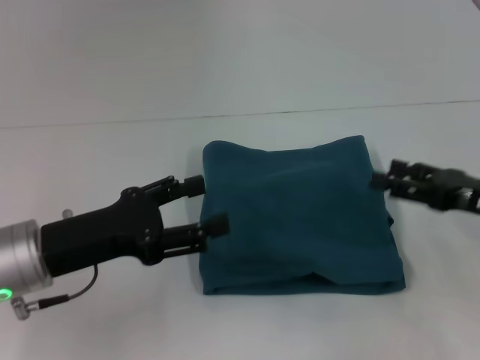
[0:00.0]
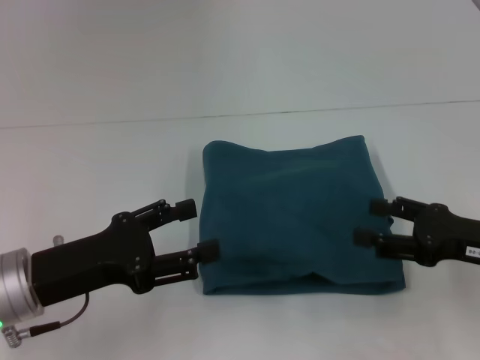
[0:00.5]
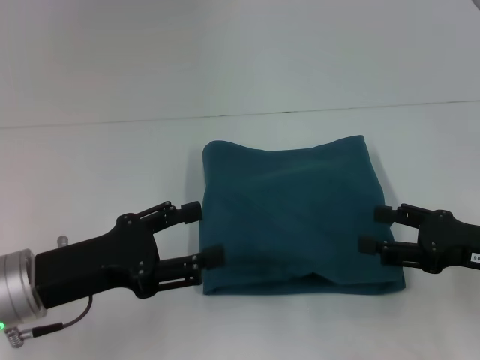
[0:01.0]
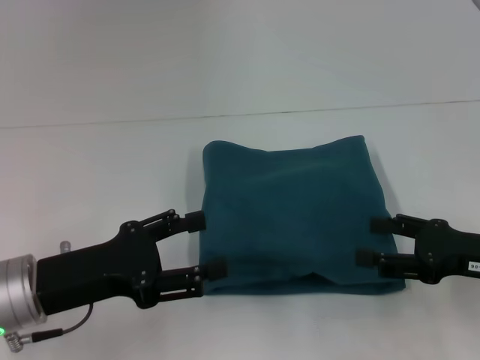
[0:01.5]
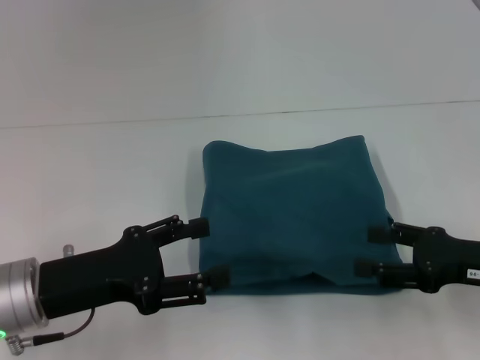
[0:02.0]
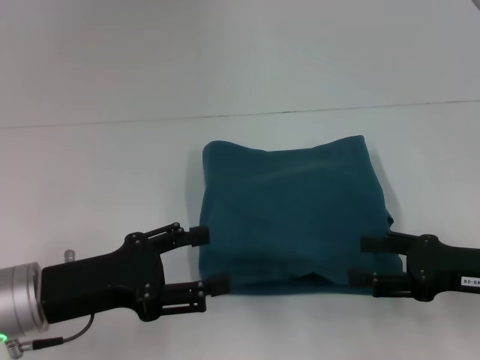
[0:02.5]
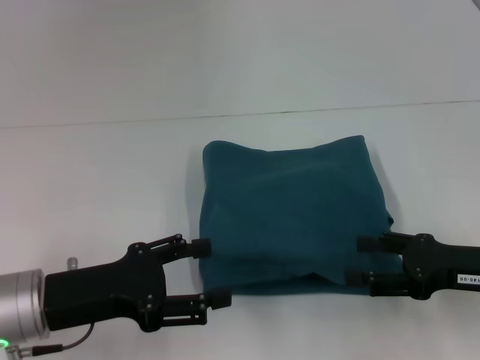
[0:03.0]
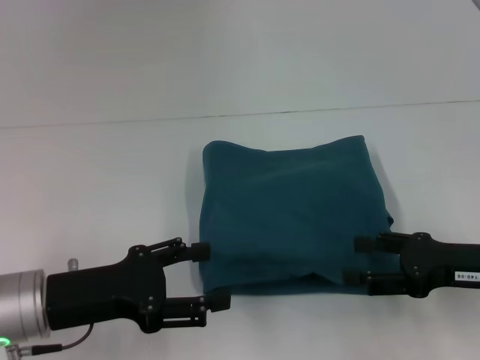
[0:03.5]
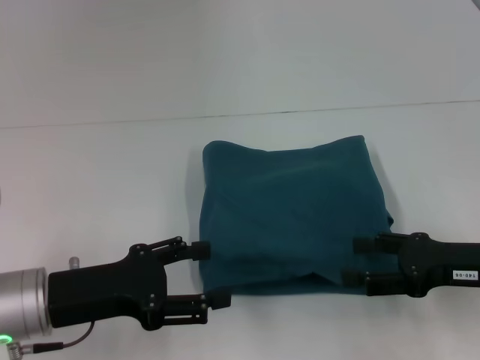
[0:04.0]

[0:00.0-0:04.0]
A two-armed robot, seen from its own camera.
0:00.0 to 0:04.0: The grippers make only small movements.

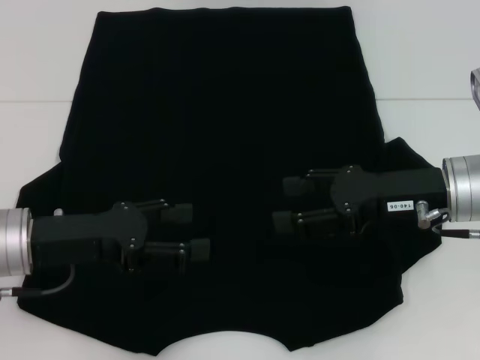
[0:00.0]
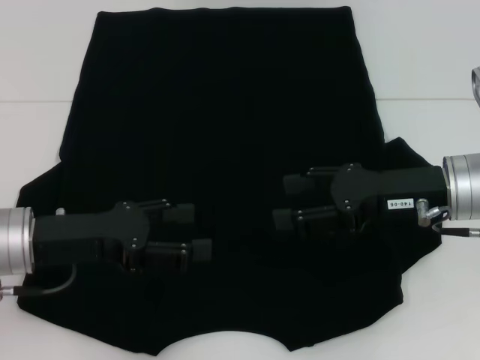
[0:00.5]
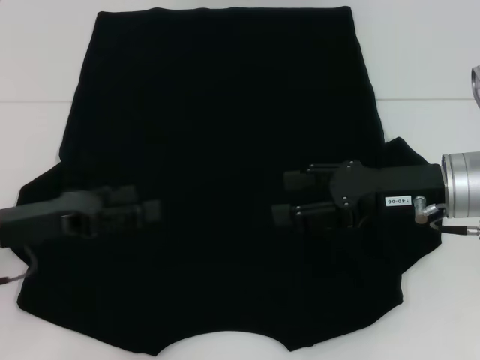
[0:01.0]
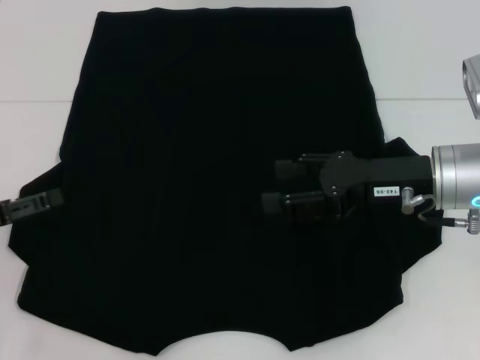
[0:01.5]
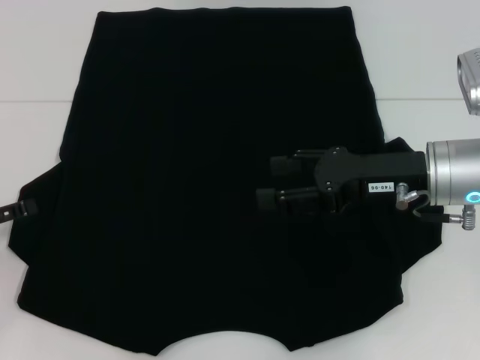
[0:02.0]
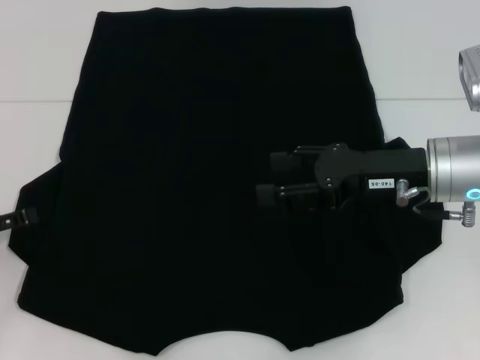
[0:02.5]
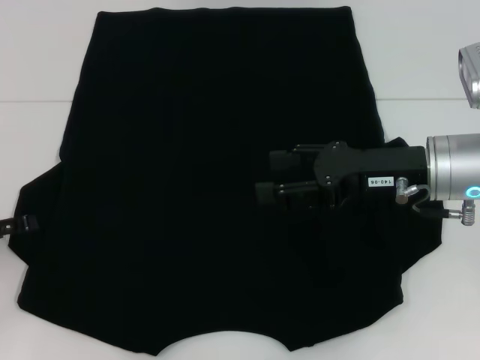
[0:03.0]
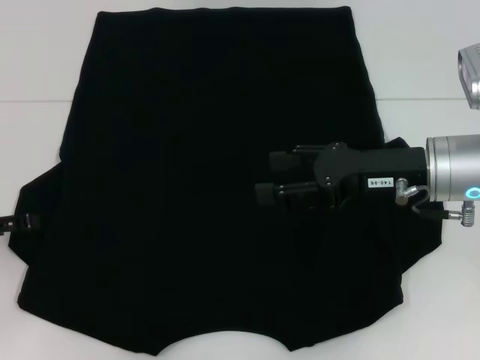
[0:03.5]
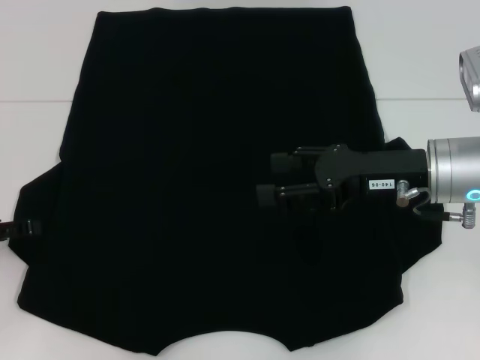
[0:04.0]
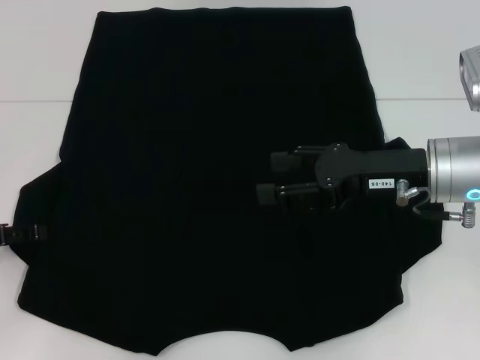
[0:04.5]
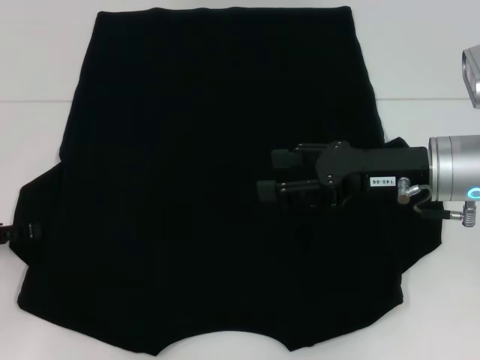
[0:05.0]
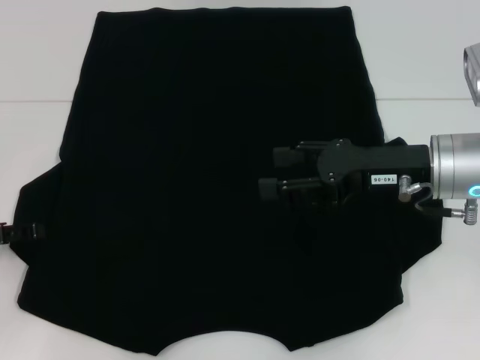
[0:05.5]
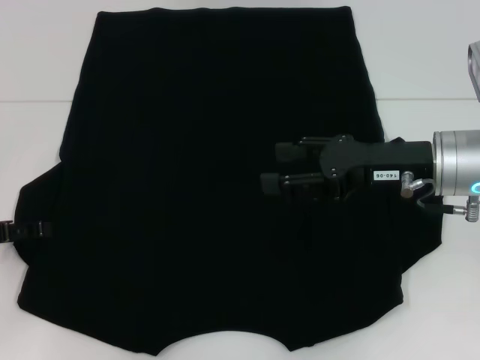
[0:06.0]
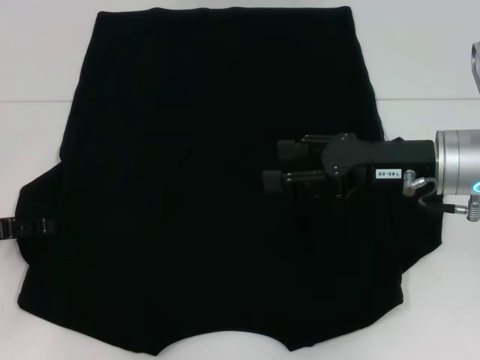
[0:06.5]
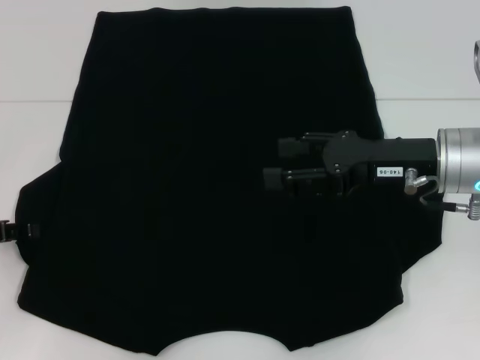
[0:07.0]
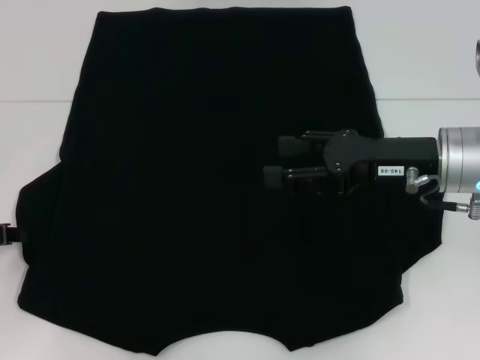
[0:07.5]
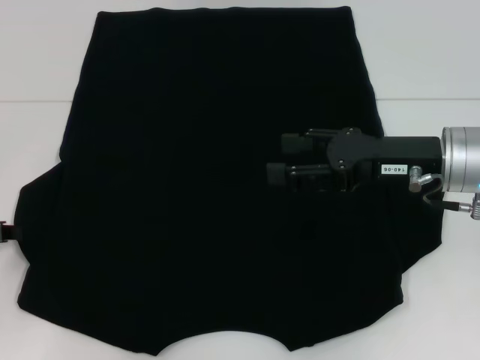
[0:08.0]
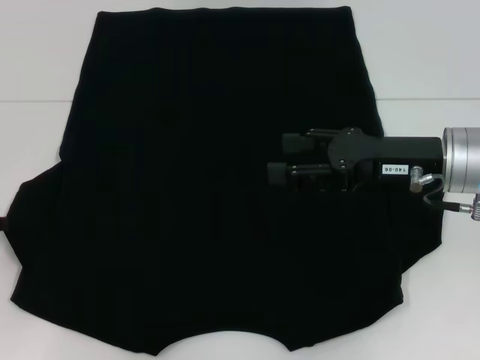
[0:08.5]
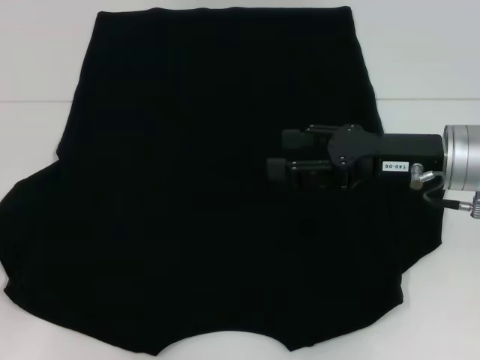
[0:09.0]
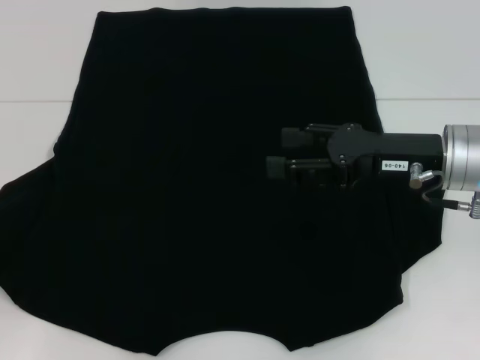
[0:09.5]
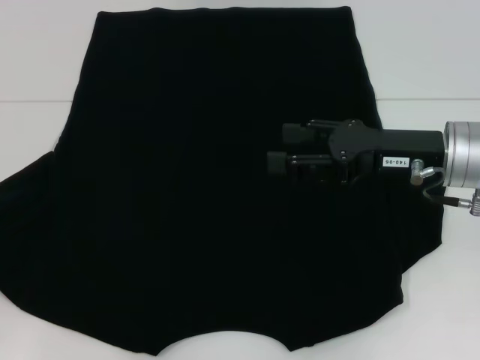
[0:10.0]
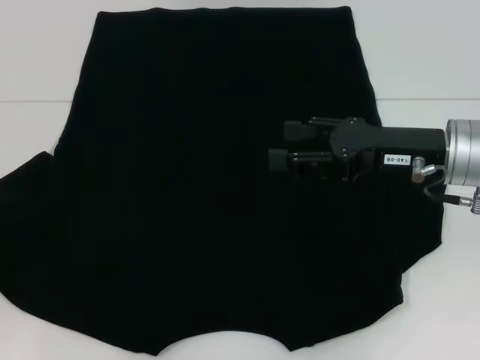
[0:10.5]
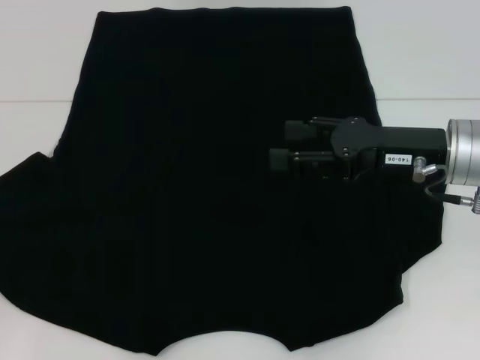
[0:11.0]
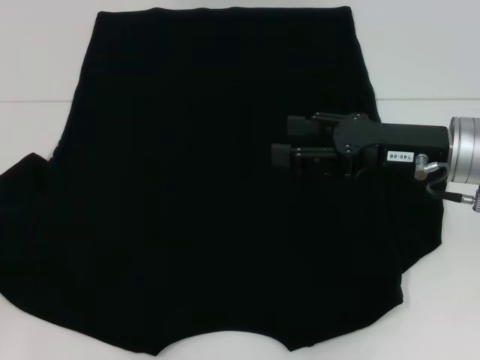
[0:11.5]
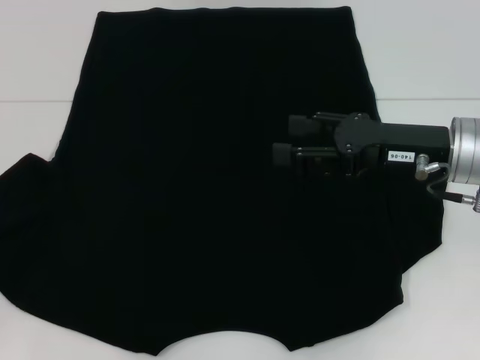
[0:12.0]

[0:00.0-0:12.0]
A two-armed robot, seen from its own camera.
0:00.0 to 0:02.0: The left gripper goes approximately 15 cm to the left.
0:02.0 to 0:04.0: There are only small adjustments of the grippers.
0:04.0 to 0:06.0: Both grippers stay about where they are.
0:08.0 to 0:10.0: The left gripper ends up roughly 5 cm from where it was.
0:10.0 to 0:12.0: The grippers stay close to where they were, moving slightly.

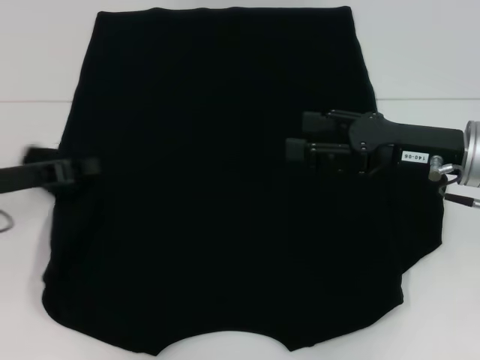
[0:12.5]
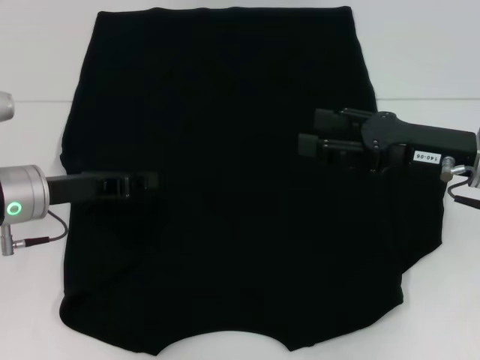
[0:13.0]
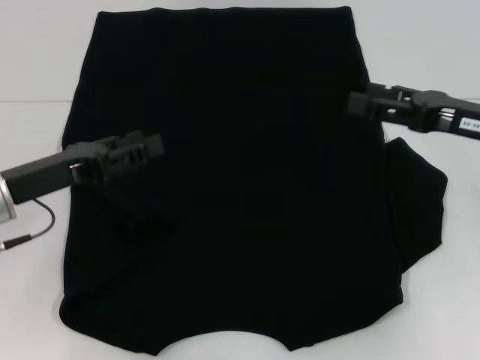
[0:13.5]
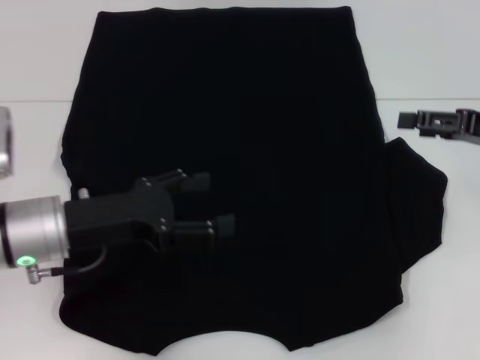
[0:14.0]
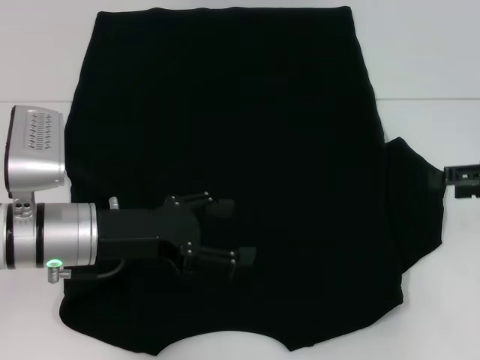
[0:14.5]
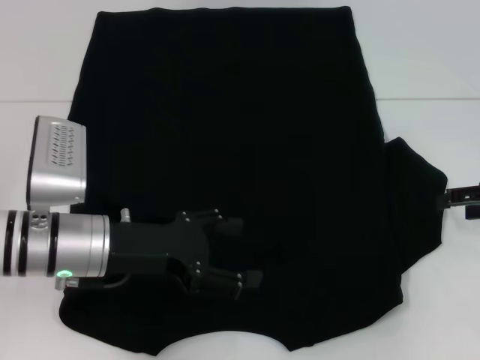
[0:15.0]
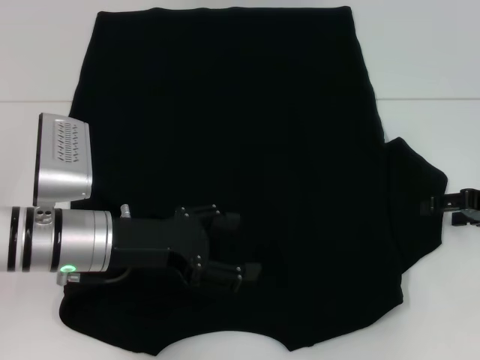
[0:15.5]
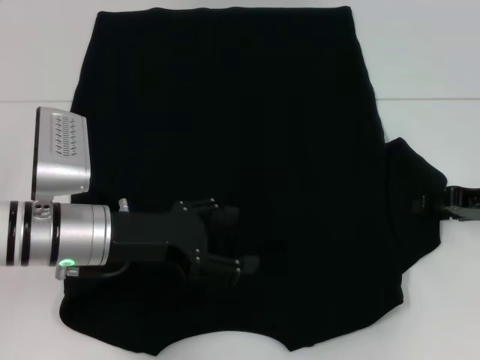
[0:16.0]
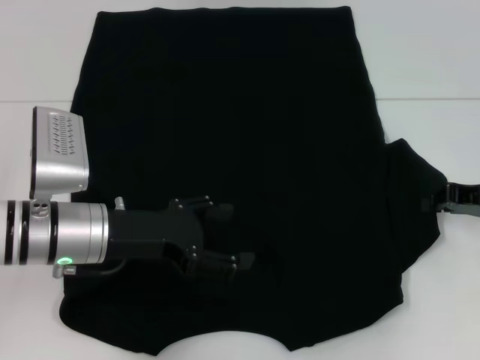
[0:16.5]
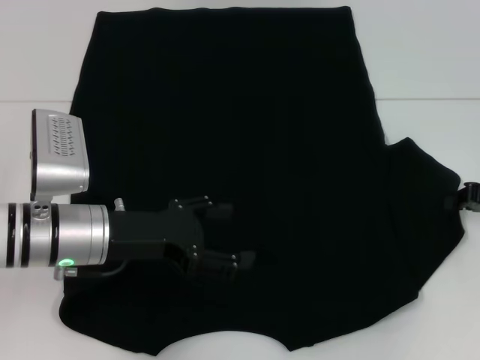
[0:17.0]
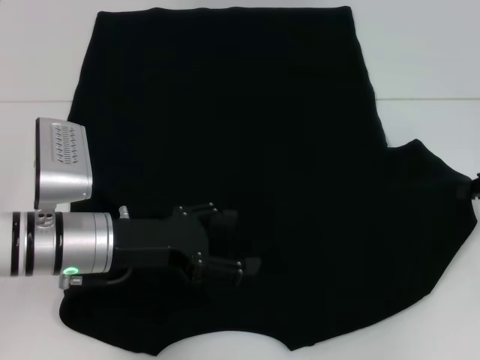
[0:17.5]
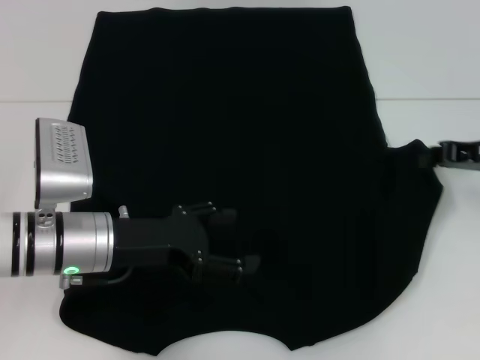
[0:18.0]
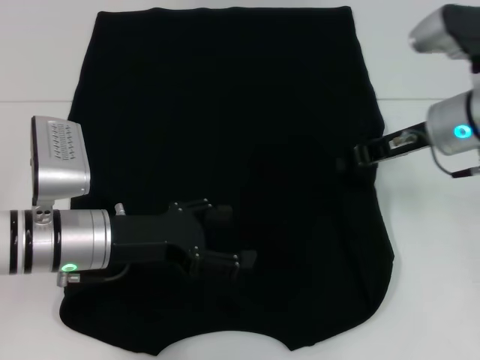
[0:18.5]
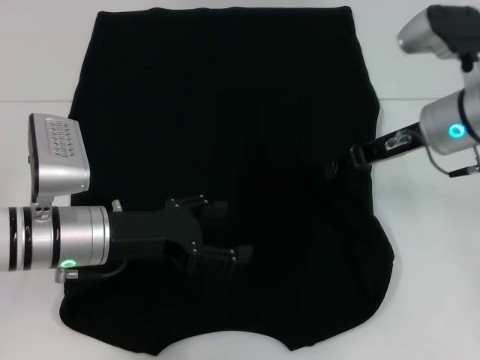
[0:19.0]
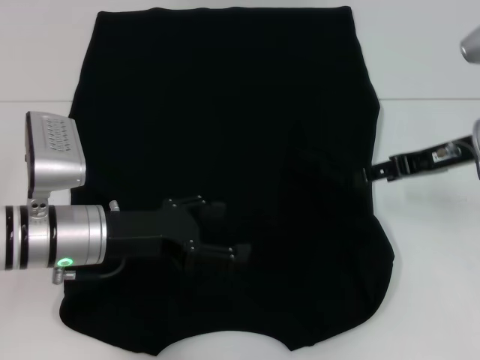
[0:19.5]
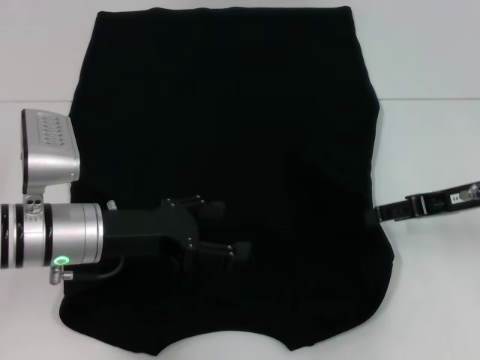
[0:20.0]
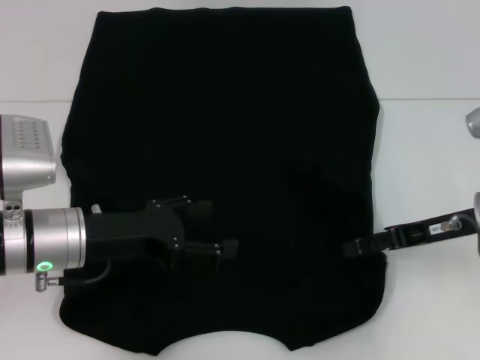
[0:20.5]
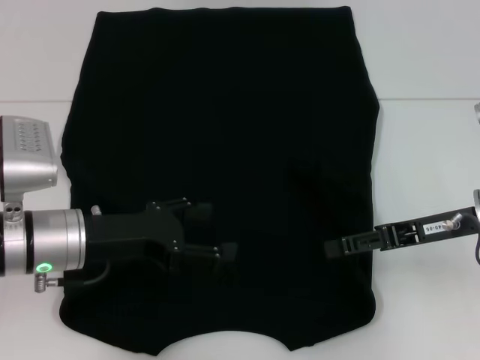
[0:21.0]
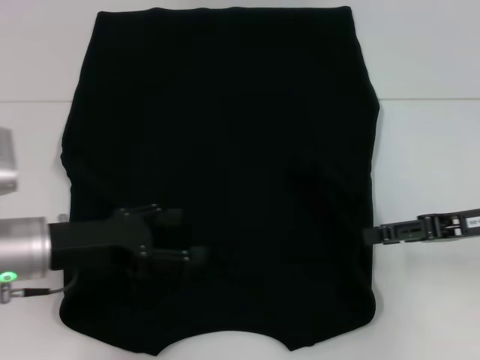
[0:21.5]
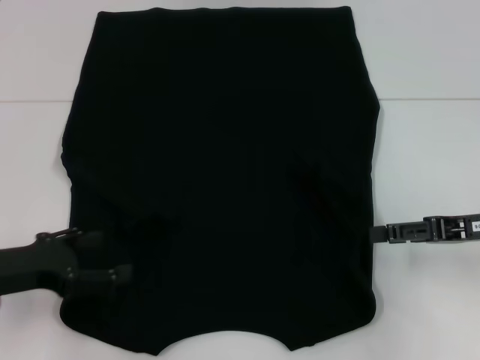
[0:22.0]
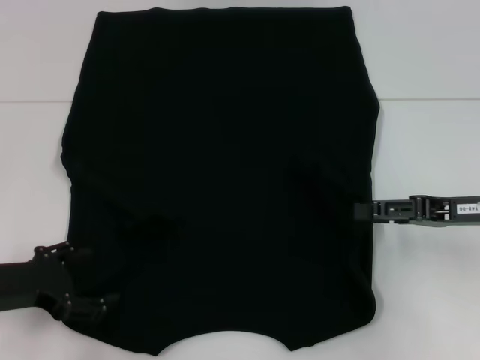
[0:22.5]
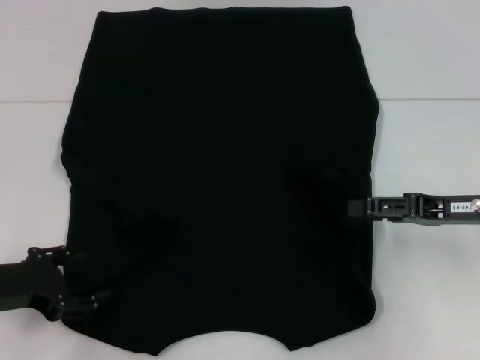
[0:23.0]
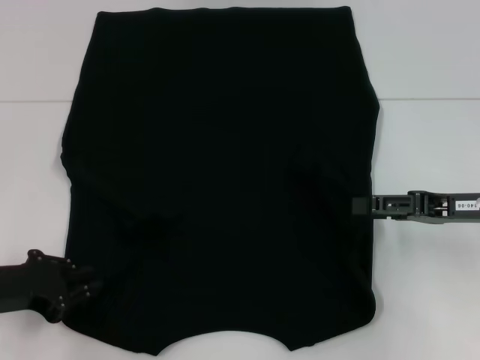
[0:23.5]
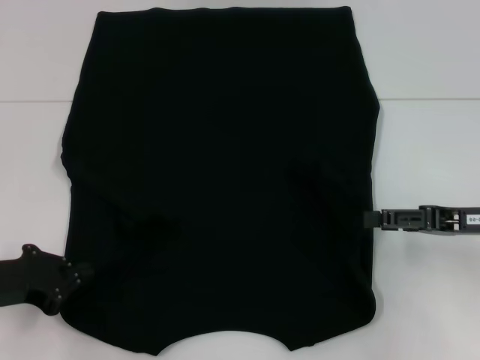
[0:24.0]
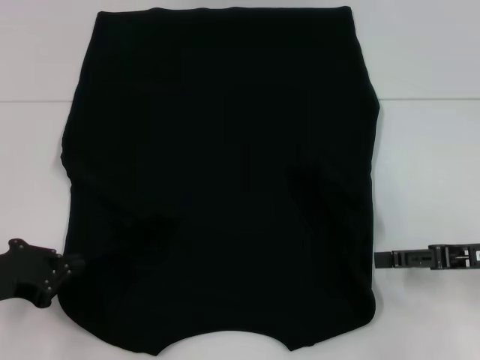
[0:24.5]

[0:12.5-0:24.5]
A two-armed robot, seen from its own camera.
Step, 0:13.5 to 0:19.0: Fold the bottom right sleeve with your right hand.
0:12.5 to 0:14.5: Both grippers travel together to the right, about 10 cm. The left gripper opens.
0:14.5 to 0:16.5: The right gripper moves some 5 cm, and closes.
0:16.5 to 0:18.5: The right gripper heads to the left and upward, covering some 10 cm.
0:18.5 to 0:20.5: The right gripper is displaced backward and downward by roughly 10 cm, and opens up.
0:20.5 to 0:22.5: The left gripper heads to the left, covering some 10 cm.
0:22.5 to 0:24.5: The left gripper closes its fingers.
